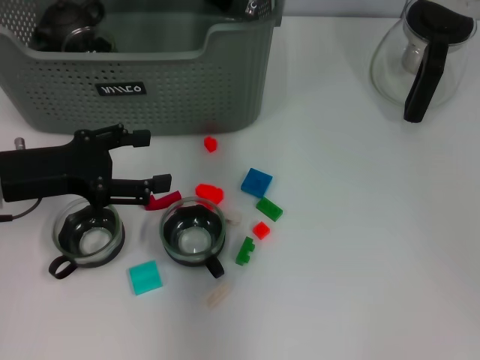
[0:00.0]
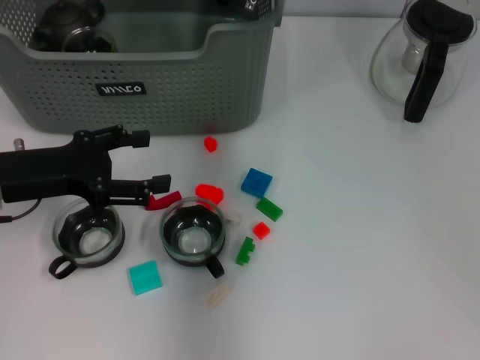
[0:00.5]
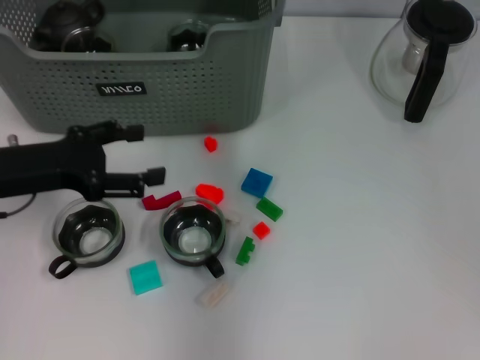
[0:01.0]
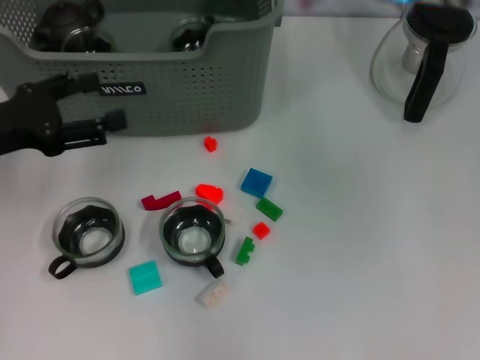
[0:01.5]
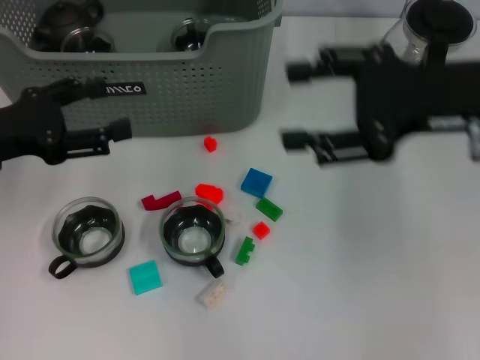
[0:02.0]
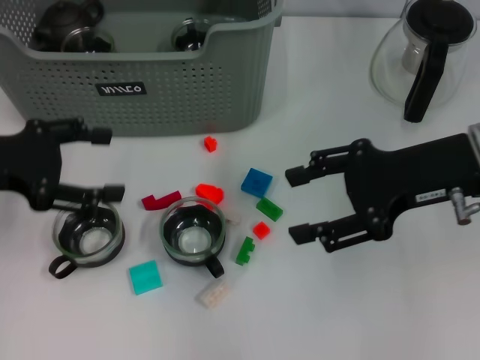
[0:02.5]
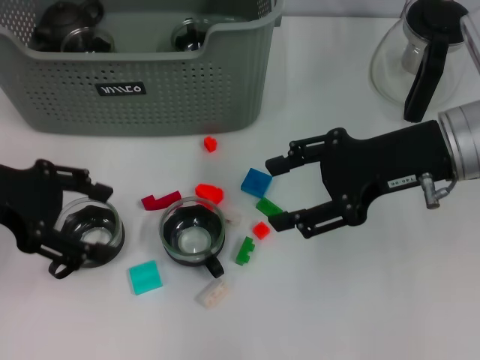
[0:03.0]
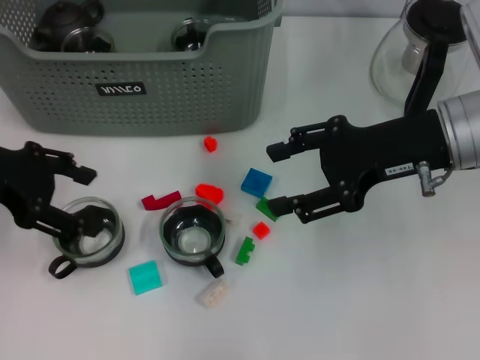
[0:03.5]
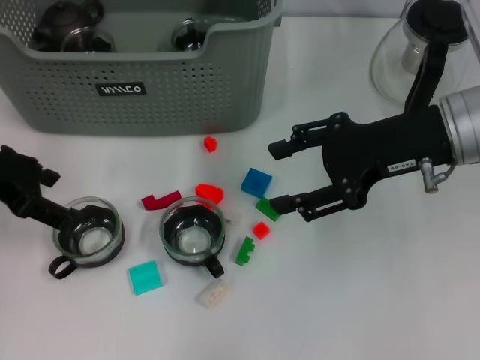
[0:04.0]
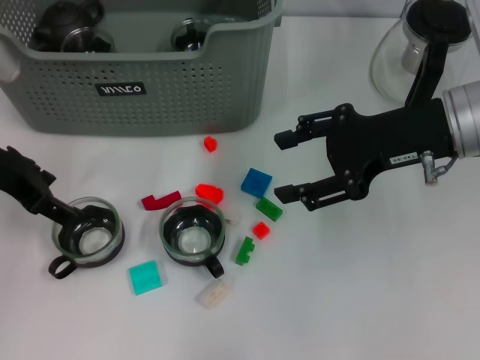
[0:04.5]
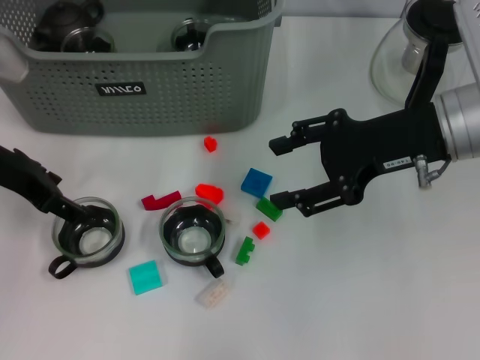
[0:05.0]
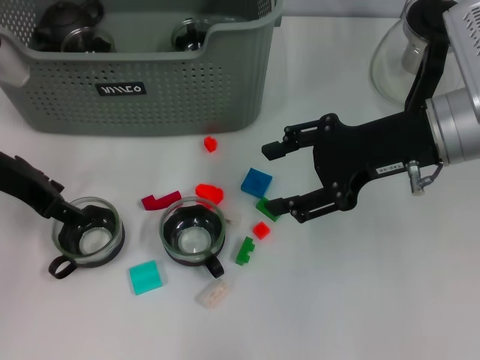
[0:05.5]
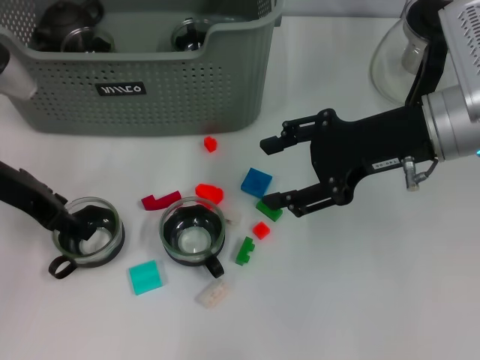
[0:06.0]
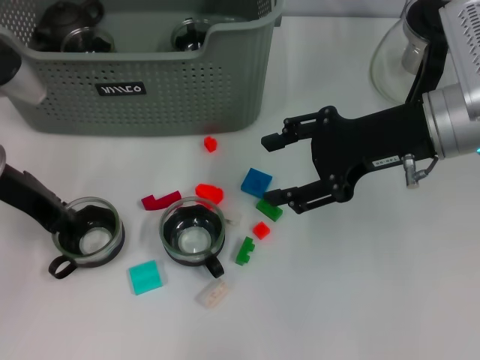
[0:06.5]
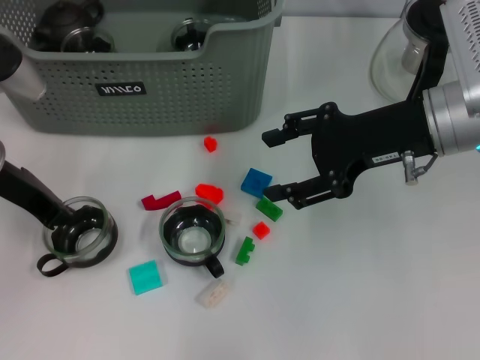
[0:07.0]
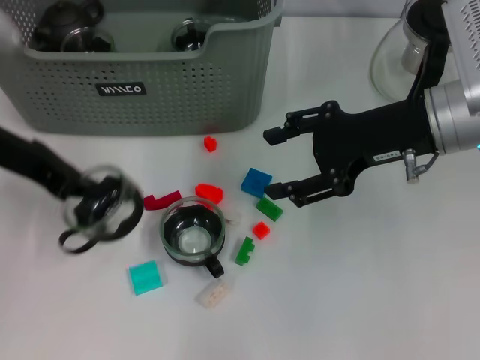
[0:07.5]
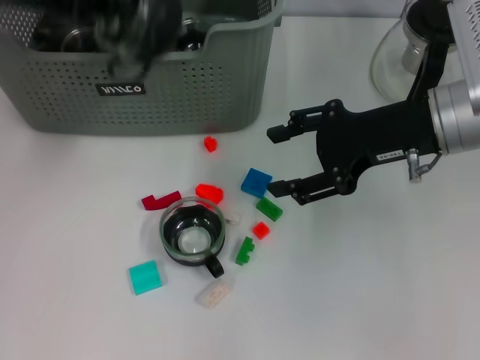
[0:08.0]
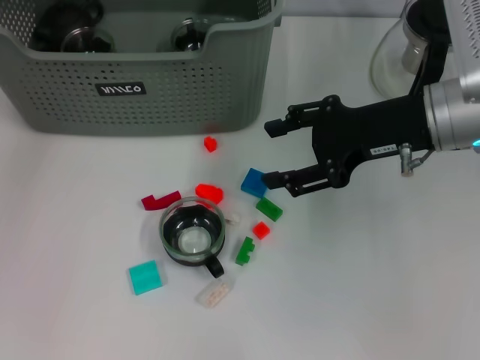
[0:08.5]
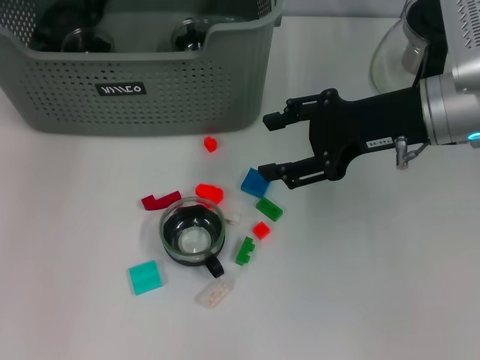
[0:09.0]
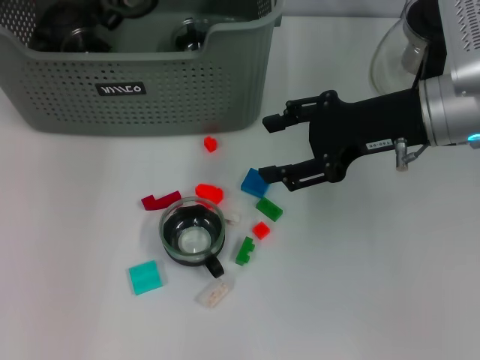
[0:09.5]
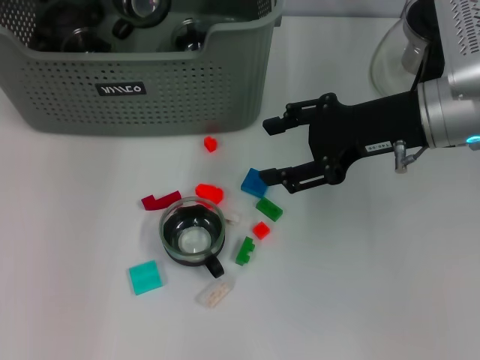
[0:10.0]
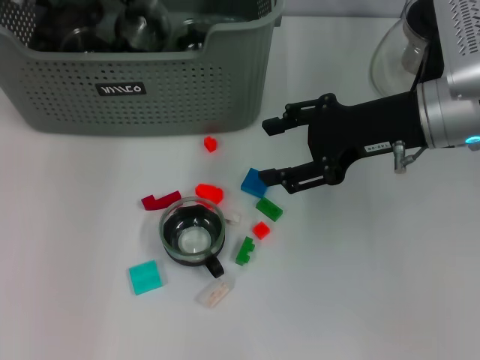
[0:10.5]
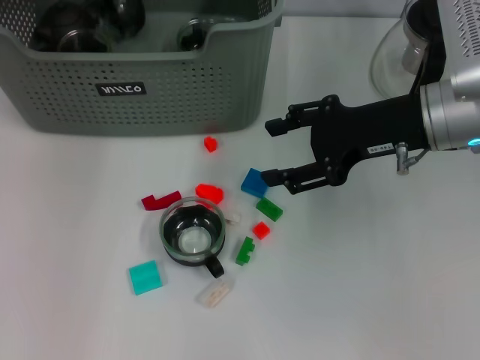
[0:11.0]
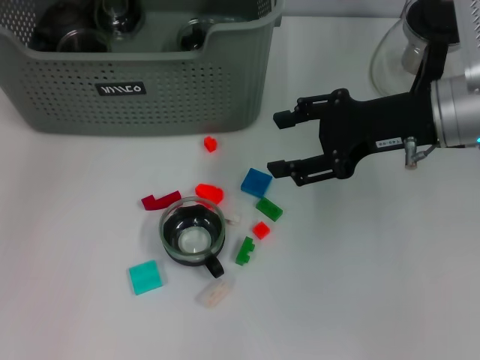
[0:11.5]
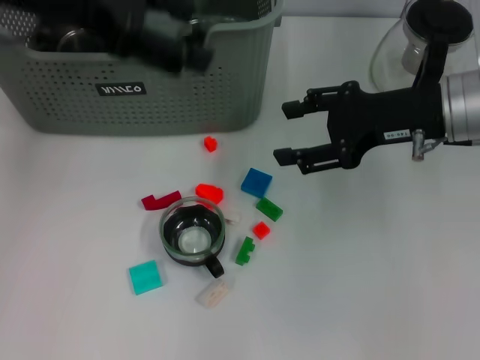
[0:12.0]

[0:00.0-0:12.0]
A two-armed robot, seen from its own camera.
Task of the whole recording: pick up the teacup on the table and place it into the storage bin, pick up the block on the table and place it into the storage bin.
Step, 0:02.0 to 0:06.5: Grasp the cup with left gripper.
Step, 0:07.5 to 0:12.0: Place the cup in the storage box with left gripper.
0:00.0 to 0:02.0: The right gripper is displaced to the right and backward by about 25 cm, and opens.
0:02.0 to 0:04.0: The left gripper moves some 5 cm.
0:04.0 to 0:06.0: The grippers stay close to where they were, moving slightly.
0:06.0 to 0:08.0: The left gripper shifts about 15 cm upward and forward, and closes.
0:08.0 to 0:10.0: The left gripper is displaced forward, to the right and downward by some 15 cm.
0:10.0 to 0:12.0: The left gripper moves backward and upward, approximately 15 cm, and opens.

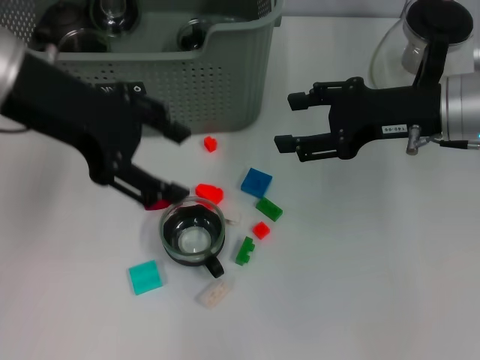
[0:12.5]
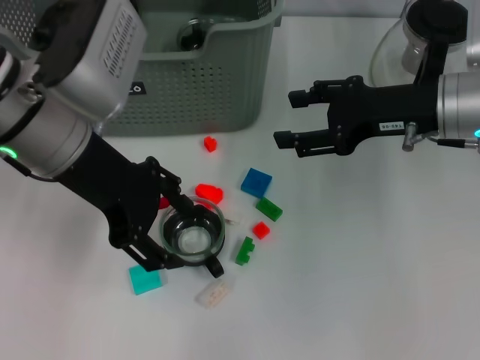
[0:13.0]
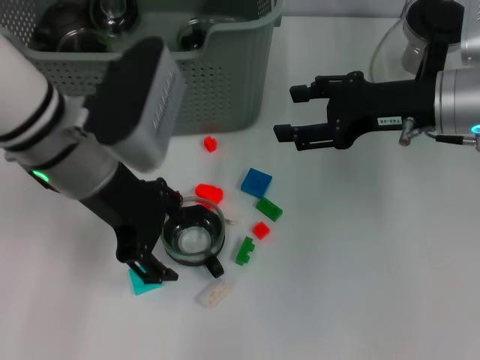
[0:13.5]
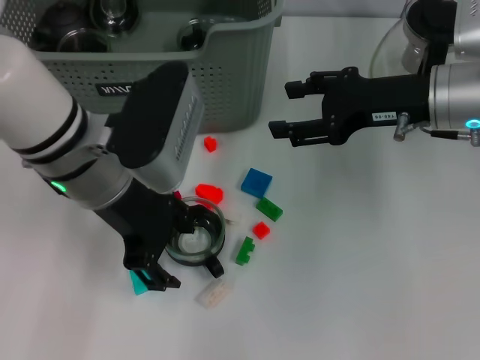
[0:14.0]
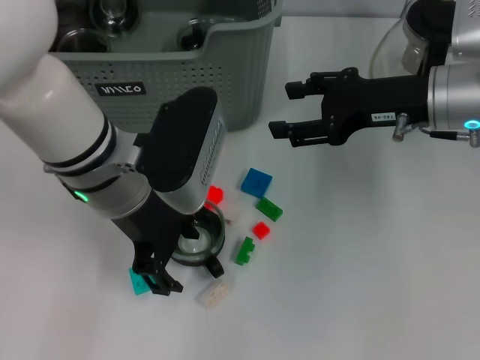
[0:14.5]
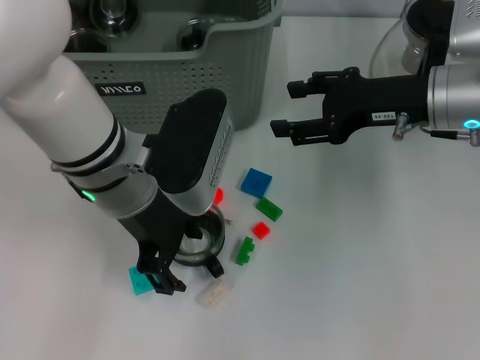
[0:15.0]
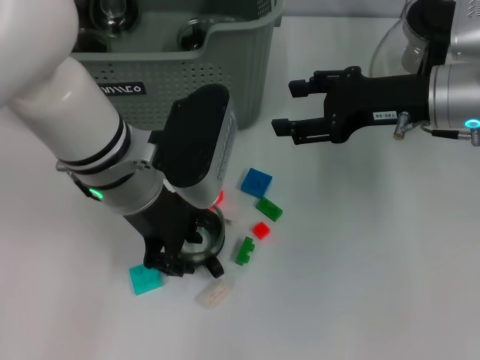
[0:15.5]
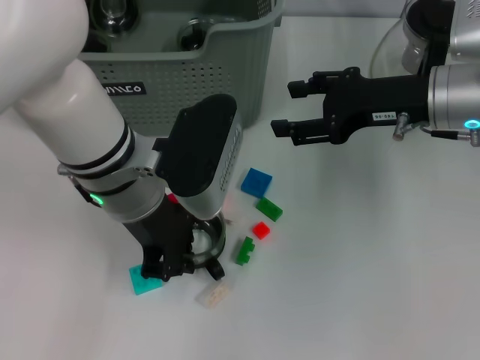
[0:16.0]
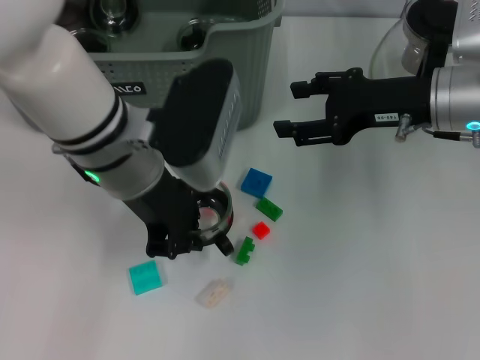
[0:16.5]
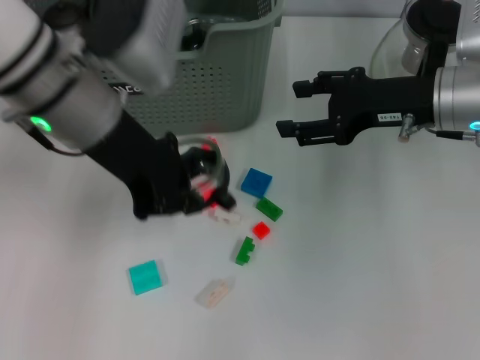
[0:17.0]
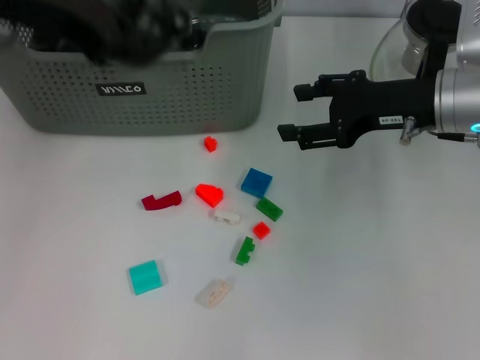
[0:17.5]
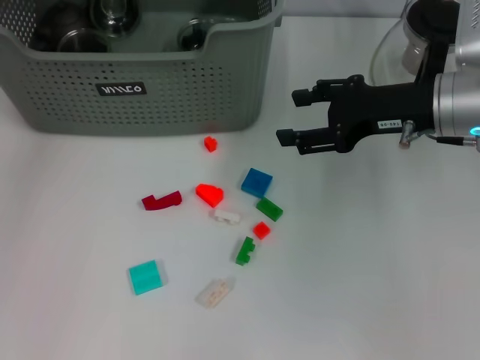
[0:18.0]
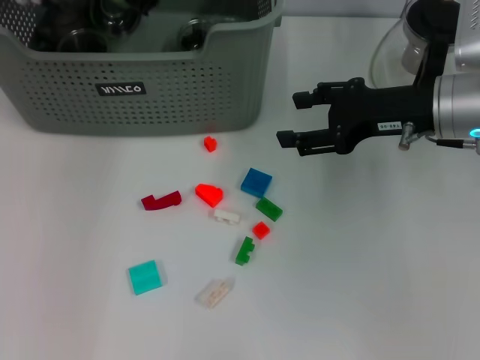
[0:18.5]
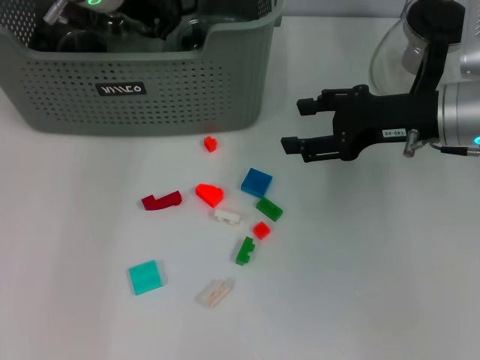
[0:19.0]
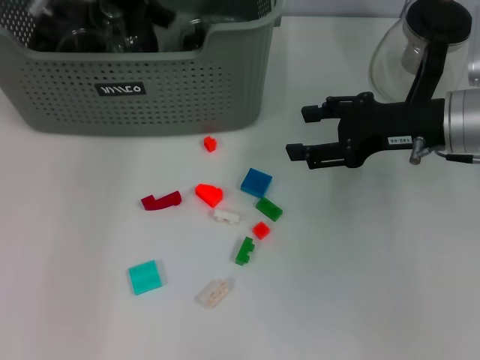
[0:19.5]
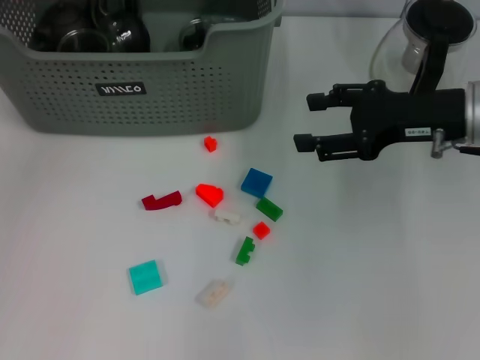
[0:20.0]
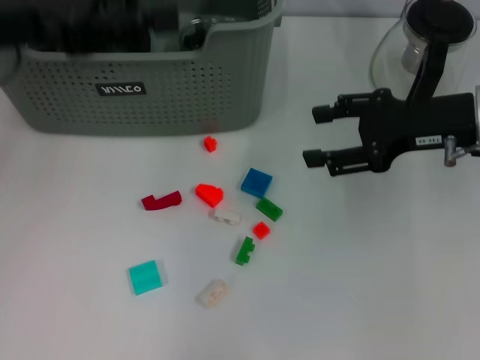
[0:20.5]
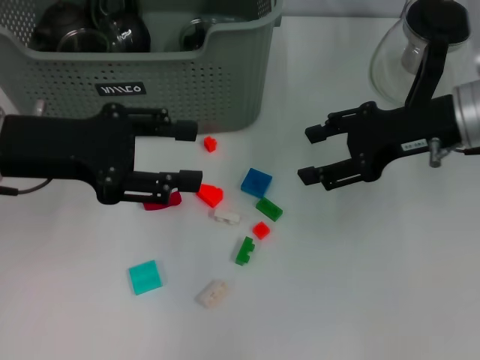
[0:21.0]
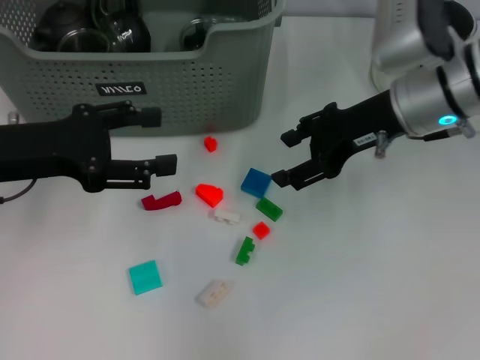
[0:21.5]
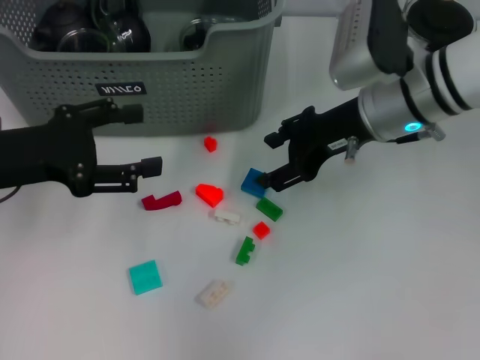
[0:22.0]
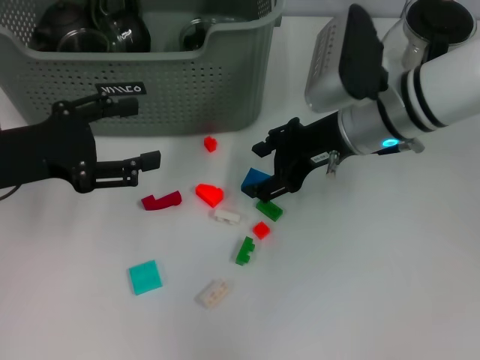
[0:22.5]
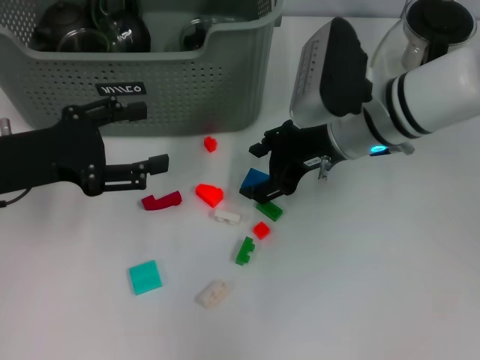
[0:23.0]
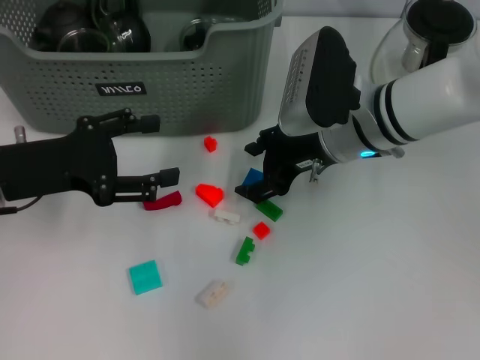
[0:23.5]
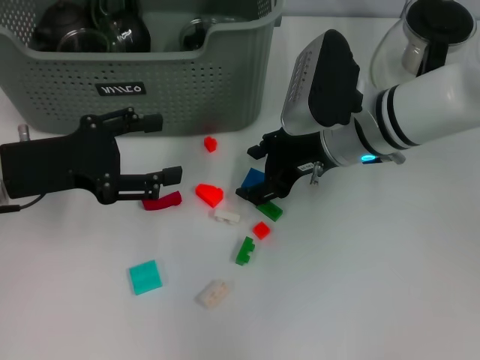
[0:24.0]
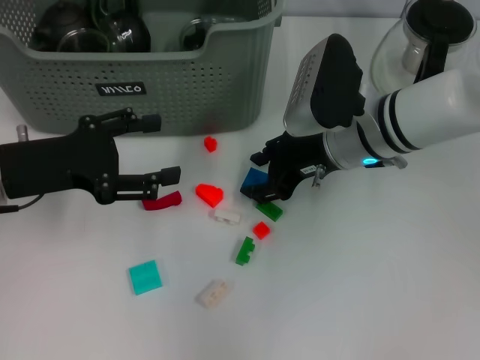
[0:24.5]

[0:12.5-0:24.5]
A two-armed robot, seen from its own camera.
Task of the whole recording: pick up the teacup on the table and place it into the storage bin, pick up the block on the table and place it into the storage bin.
Step, 0:12.5 to 0:16.0: Grasp the cup with left gripper.
Step, 0:16.5 to 0:20.0: Place the cup in the storage box with left gripper.
0:12.5 to 0:14.5: The left gripper goes approximately 15 cm downward and to the right.
0:14.5 to 0:16.5: The left gripper closes its fingers.
0:16.5 to 0:18.5: The left gripper is displaced forward and to the left by some 15 cm.
0:18.5 to 0:20.5: The left gripper goes approximately 15 cm backward and to the left, and opens its fingers.
0:20.5 to 0:22.5: The left gripper heads downward, covering some 10 cm. Meanwhile the right gripper moves to the left, roughly 10 cm.
0:22.5 to 0:24.5: There are only small adjustments of the grippers.

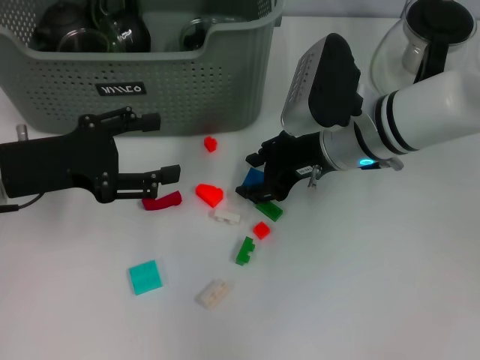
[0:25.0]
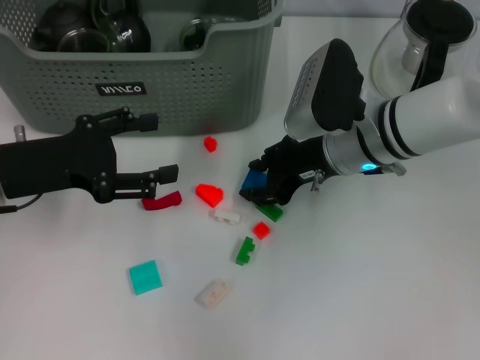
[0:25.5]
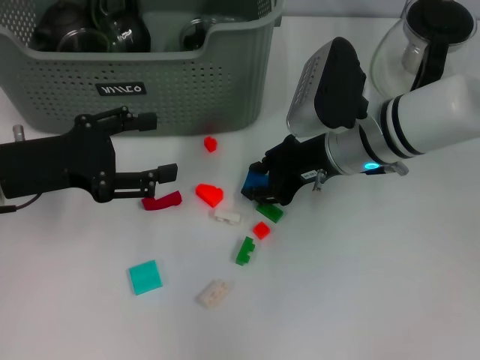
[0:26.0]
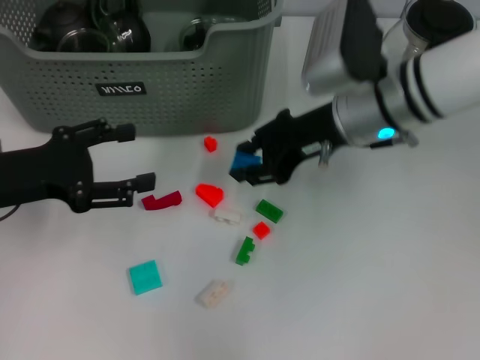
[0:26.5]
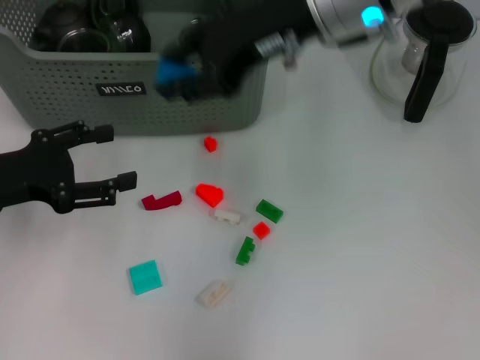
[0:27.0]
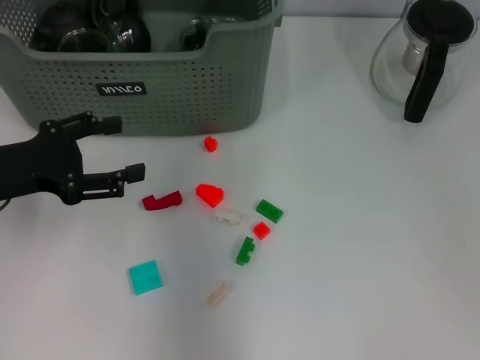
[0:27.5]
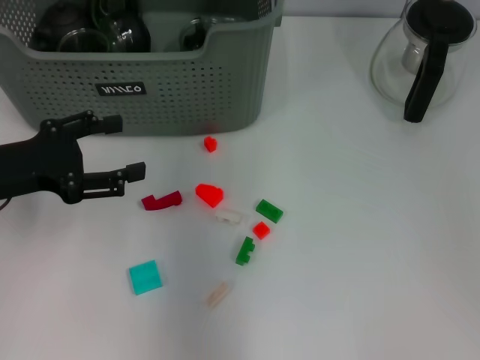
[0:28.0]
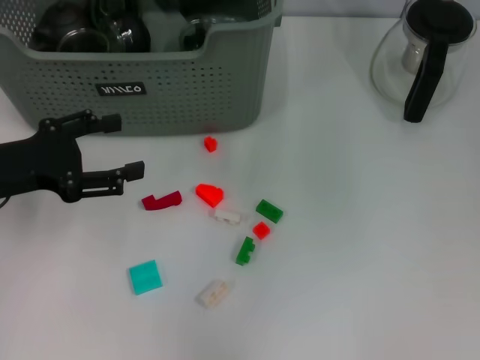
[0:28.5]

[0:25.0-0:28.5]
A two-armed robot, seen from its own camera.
Task of the whole recording: pick up the teacup on the table and place it into the storage bin, pick up the block on the table and place it into the storage bin.
Step, 0:26.0 to 0:28.0: Place the dark blue block in the storage box with right gripper.
0:25.0 to 0:27.0: The right gripper travels upward by approximately 15 cm.
0:27.0 to 0:28.5: The right gripper reaches roughly 5 cm to the left, then returns, and opens up.
